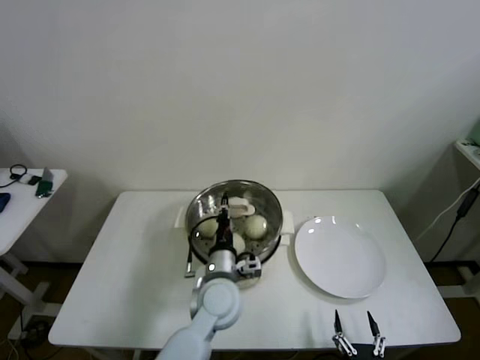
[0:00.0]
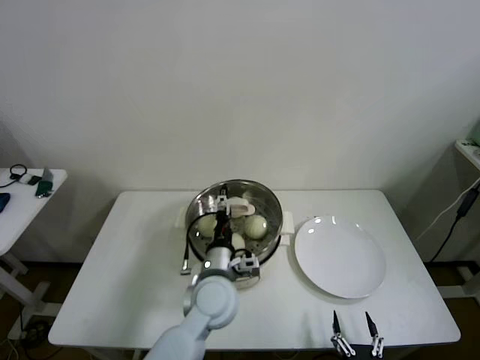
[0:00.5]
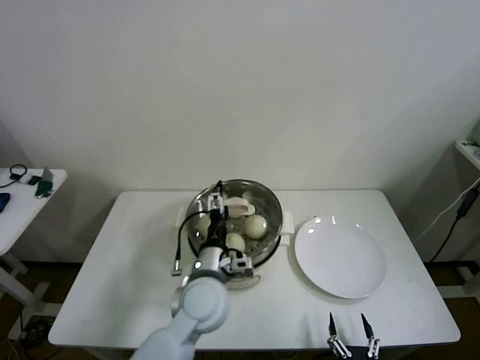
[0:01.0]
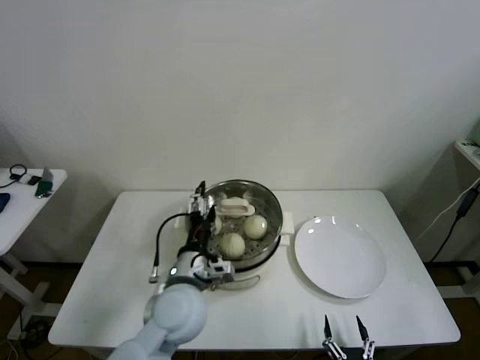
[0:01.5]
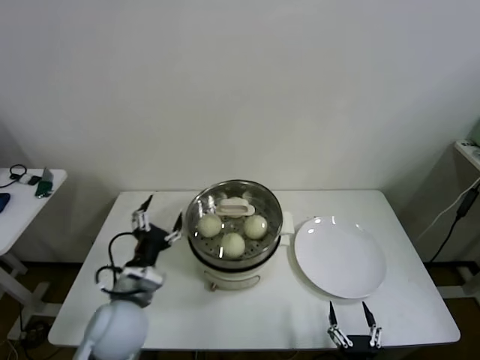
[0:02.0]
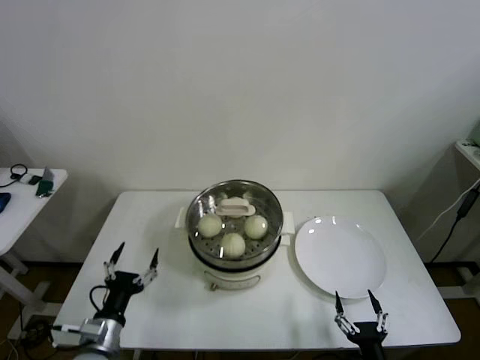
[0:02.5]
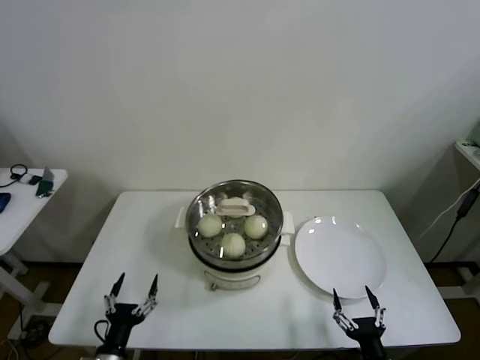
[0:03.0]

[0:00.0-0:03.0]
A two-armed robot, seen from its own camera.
0:00.0 to 0:01.5: The left gripper moves upward and to the left, about 10 cm, and opens its fingers.
0:01.5 to 0:03.0: The left gripper moves to the left, downward and backward, roughly 30 cm. The right gripper moves upward, some 5 cm.

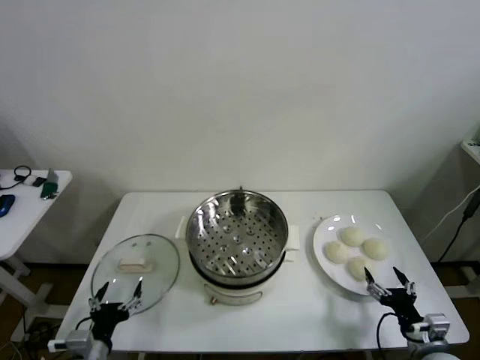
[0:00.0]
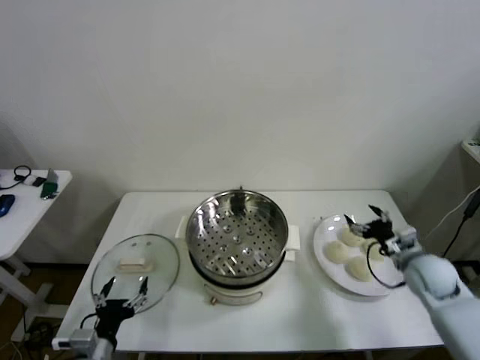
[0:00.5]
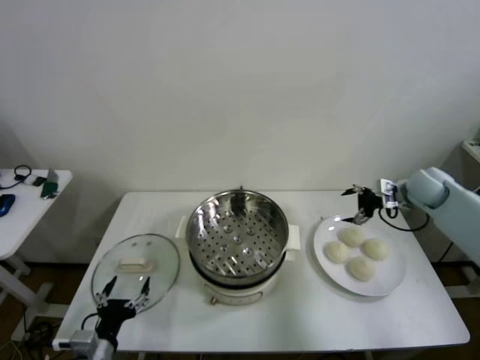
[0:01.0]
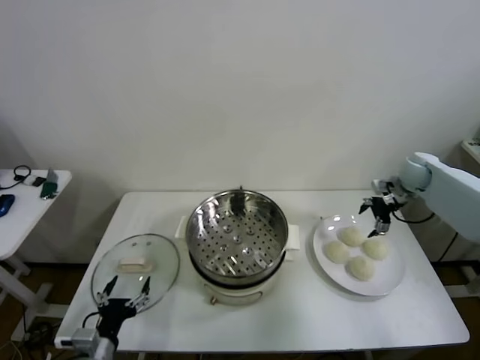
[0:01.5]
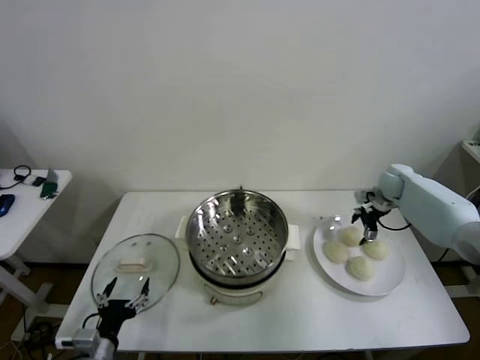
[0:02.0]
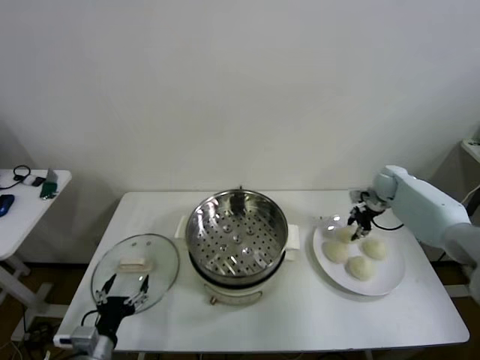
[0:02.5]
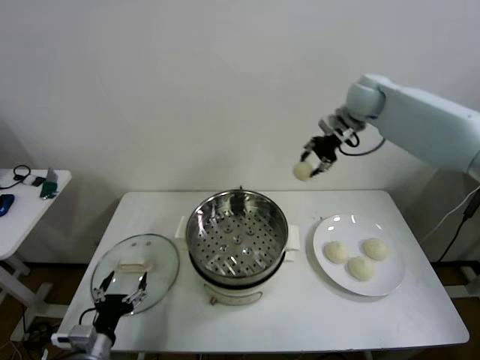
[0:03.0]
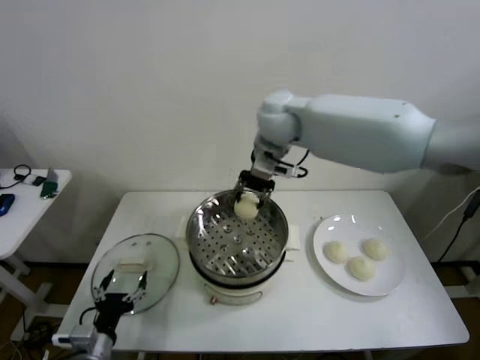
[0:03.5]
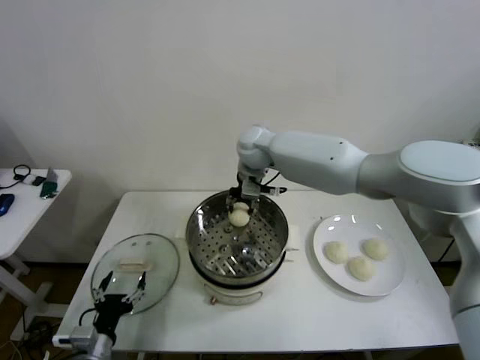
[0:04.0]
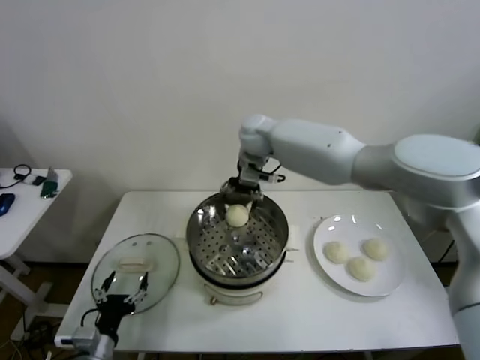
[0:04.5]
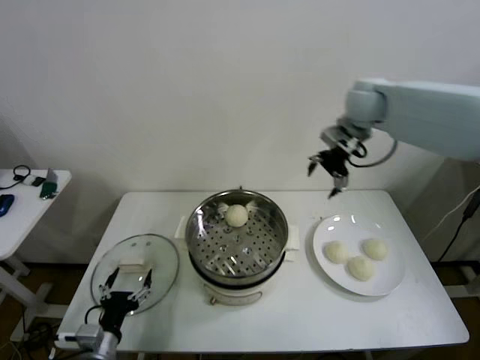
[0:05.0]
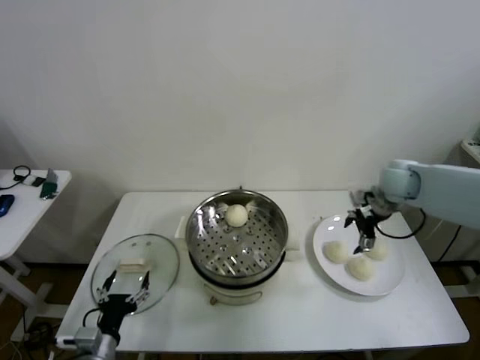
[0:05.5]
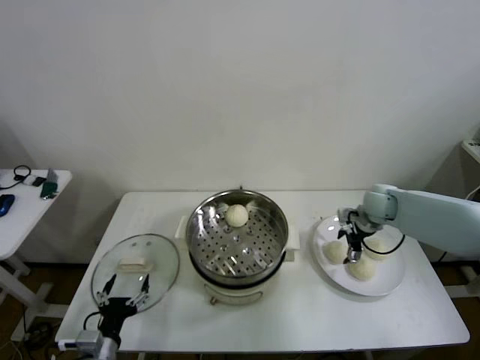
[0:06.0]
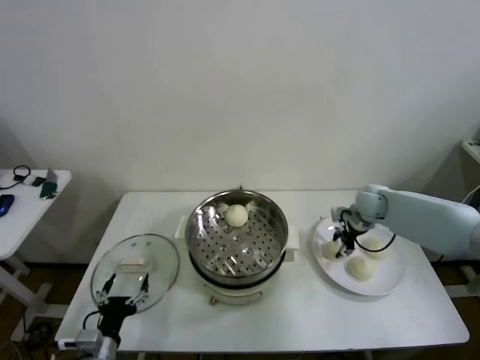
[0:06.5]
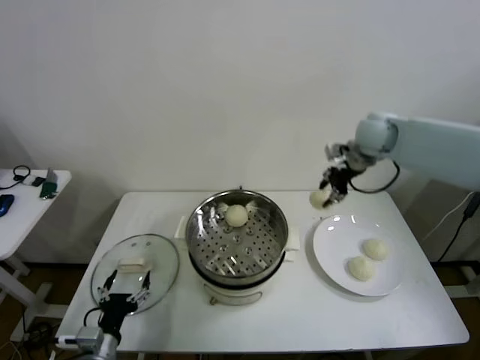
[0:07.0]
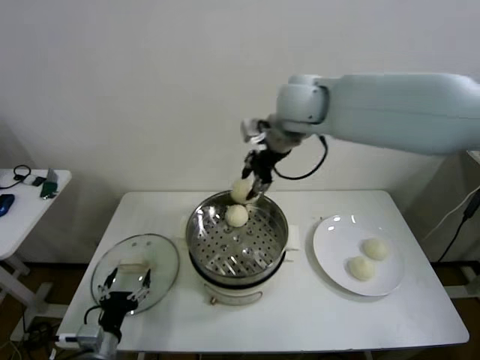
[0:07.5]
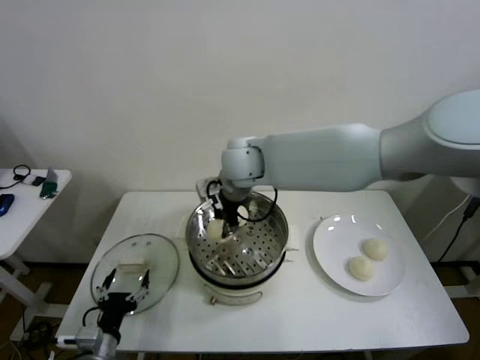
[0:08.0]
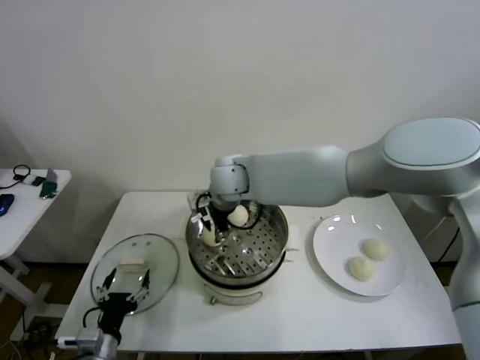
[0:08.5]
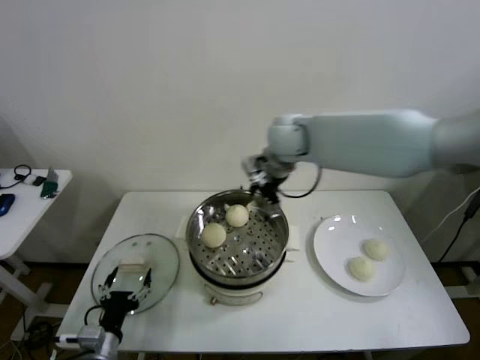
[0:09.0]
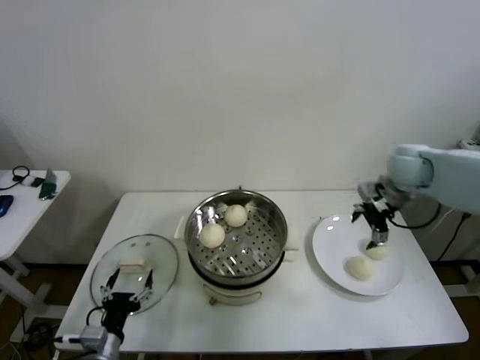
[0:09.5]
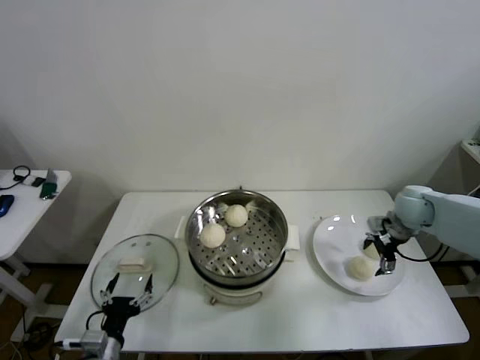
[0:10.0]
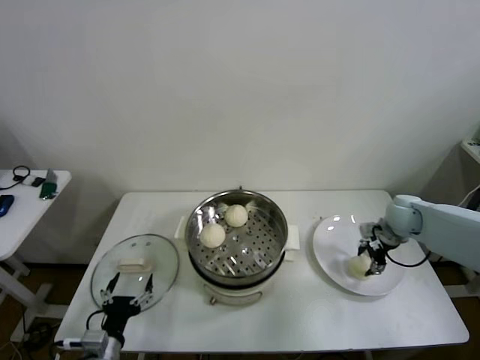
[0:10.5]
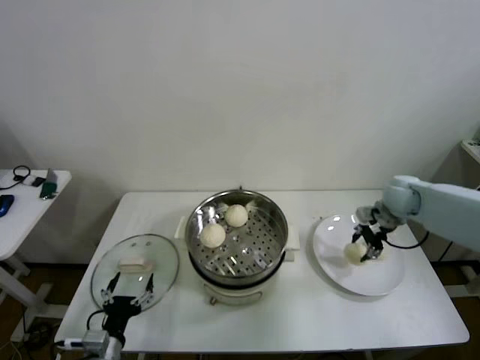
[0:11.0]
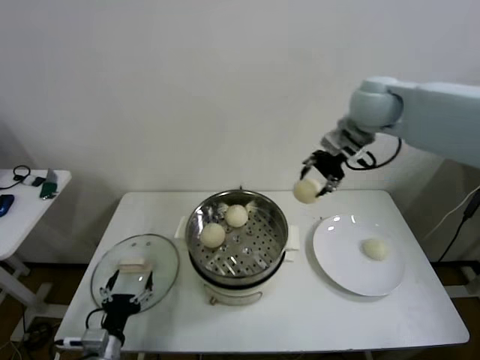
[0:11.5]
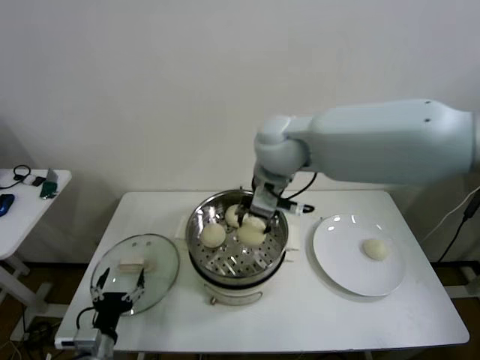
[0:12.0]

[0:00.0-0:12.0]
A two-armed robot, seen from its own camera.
Step, 0:00.0 to 0:02.0: Grasp the baozi in the plate with right gripper.
Step, 0:02.5 to 0:04.0: Place the baozi on the steamer with right gripper.
Step, 0:04.5 to 0:06.0: Grasp the baozi in the plate with right gripper.
Step, 0:07.0 to 0:08.5: Place the baozi on the steamer with right gripper.
Step, 0:09.0 to 0:10.5: Grasp the baozi in the plate with right gripper.
0:02.0 to 0:04.0: The right gripper shifts roughly 40 cm to the left, and closes.
0:04.0 to 0:06.0: The right gripper travels to the right and downward by some 35 cm, and opens its fingers.
0:06.0 to 0:08.0: The right gripper moves to the left and upward, some 40 cm, and closes up.
0:08.0 to 0:10.0: The right gripper shifts approximately 40 cm to the right, and opens up.
0:10.0 to 0:12.0: The right gripper moves to the left and upward, about 40 cm, and closes.

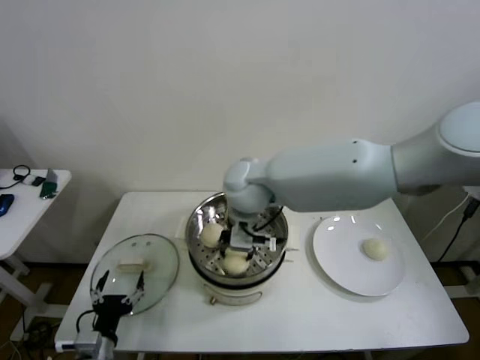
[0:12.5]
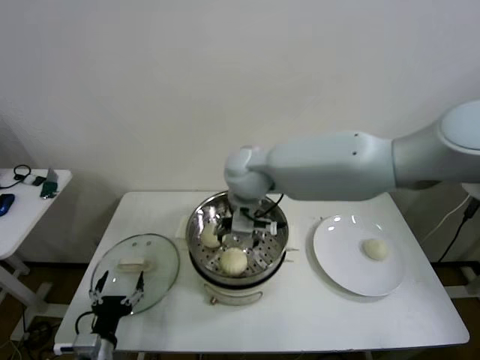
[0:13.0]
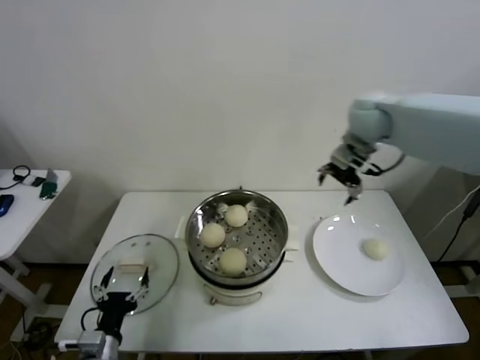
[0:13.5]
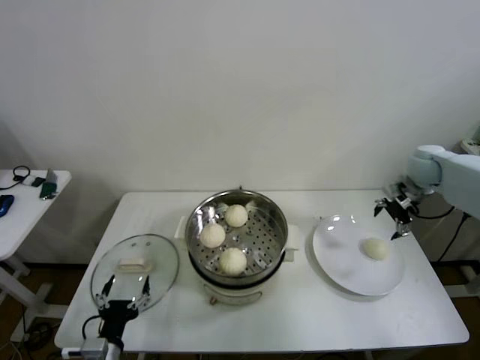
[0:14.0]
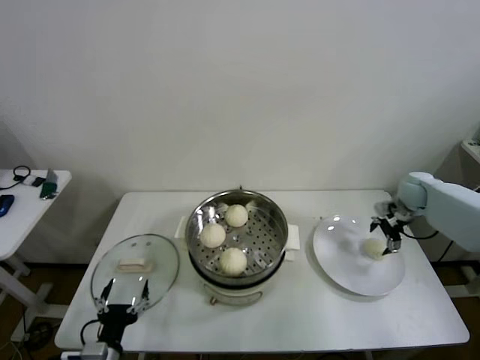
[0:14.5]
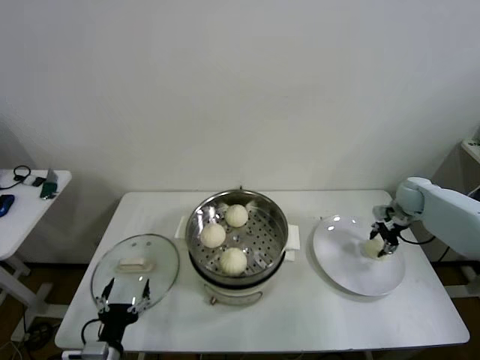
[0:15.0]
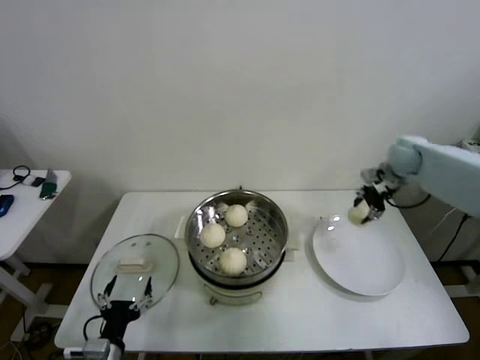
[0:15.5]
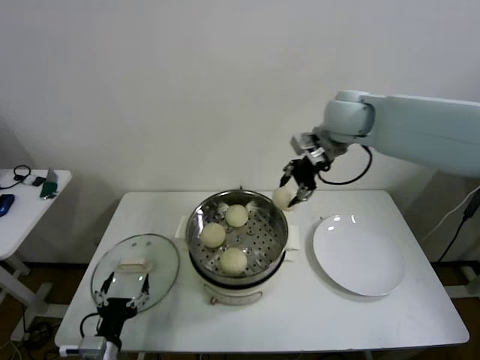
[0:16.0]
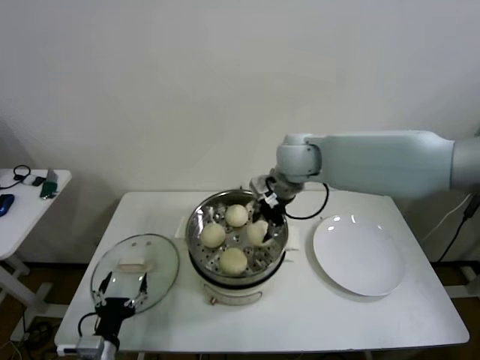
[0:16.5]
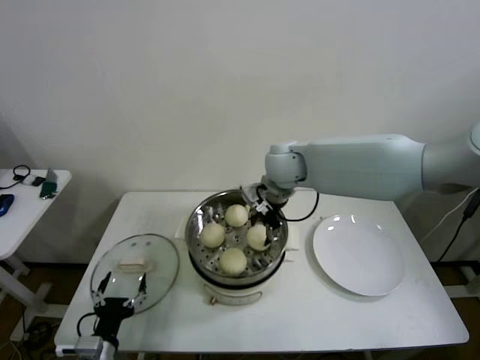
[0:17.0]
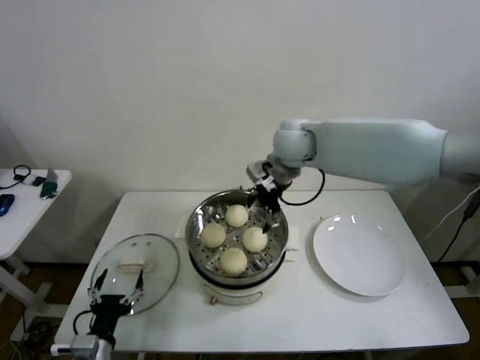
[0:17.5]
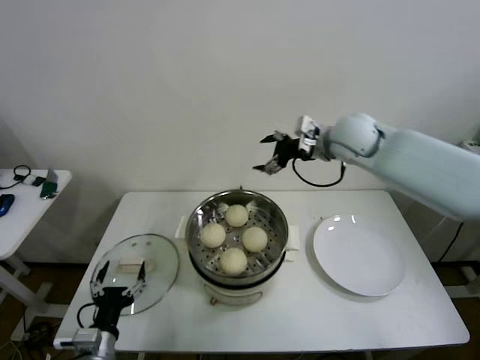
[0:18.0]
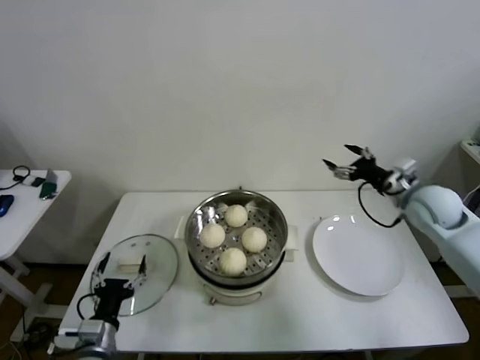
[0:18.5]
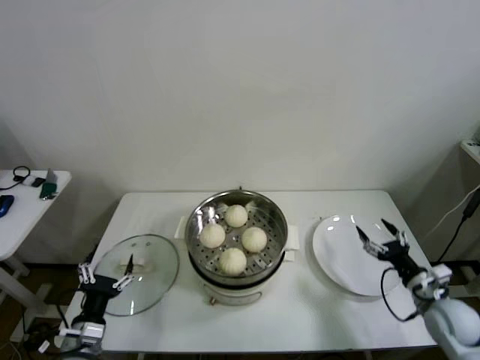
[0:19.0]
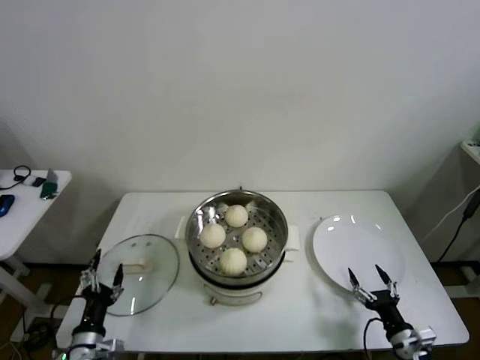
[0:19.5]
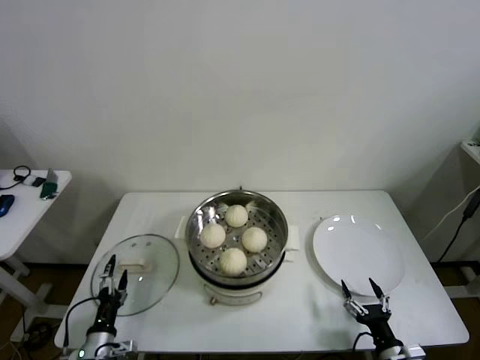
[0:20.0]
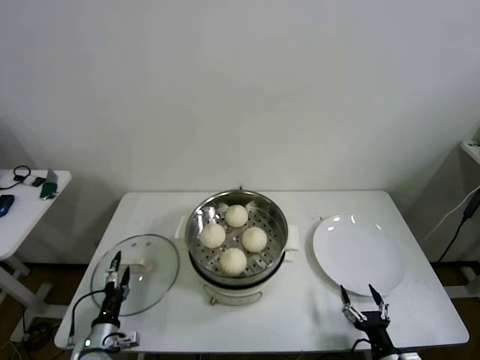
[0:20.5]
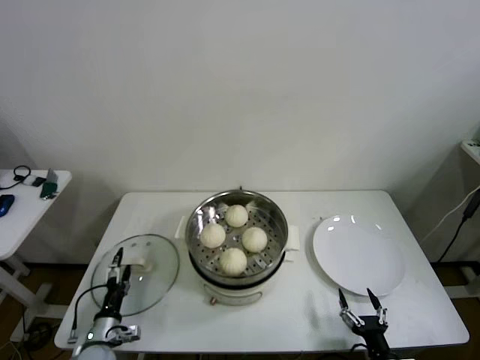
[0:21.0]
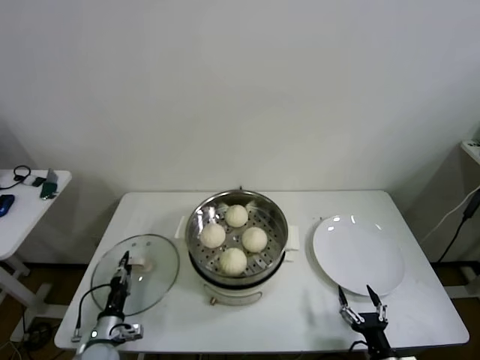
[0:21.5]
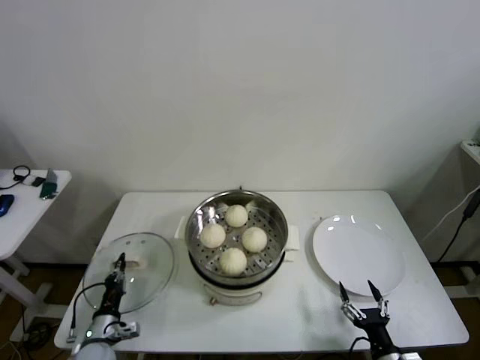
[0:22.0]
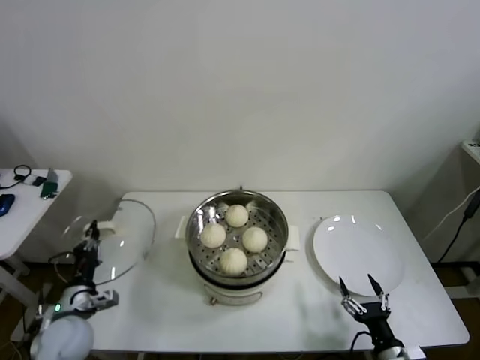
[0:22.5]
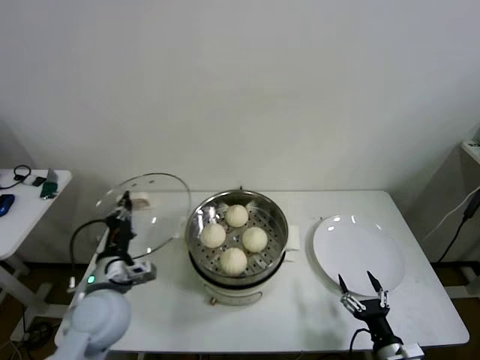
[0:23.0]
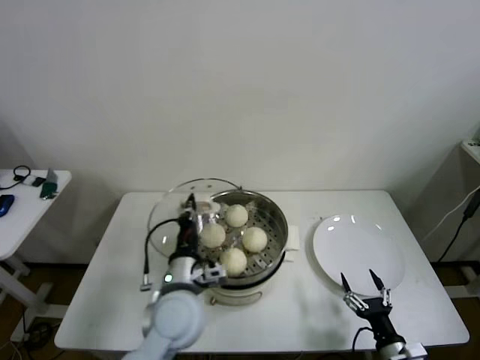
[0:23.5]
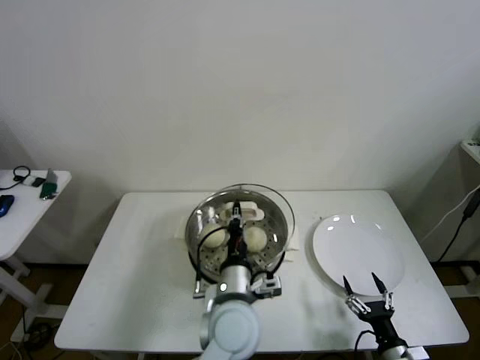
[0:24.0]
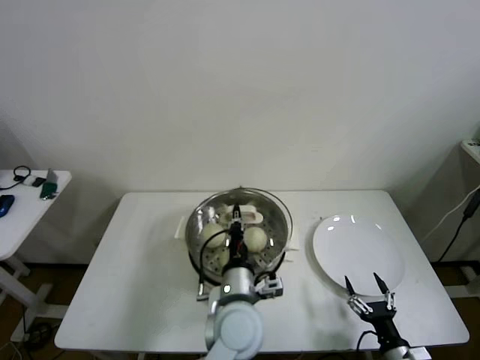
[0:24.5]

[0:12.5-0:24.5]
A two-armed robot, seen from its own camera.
Step, 0:13.0 to 0:15.0: Grasp the baozi in the plate with right gripper.
Step, 0:15.5 to 0:17.0: Place the baozi on the steamer with right gripper.
Step, 0:17.5 to 0:21.5: Grasp the pot lid with left gripper.
0:12.5 to 0:14.5: The right gripper moves to the right, approximately 50 cm, and opens up.
0:14.5 to 0:16.5: The right gripper shifts roughly 40 cm to the left and upward, and closes its fingers.
0:16.5 to 0:18.5: The right gripper shifts about 30 cm to the right, and opens up.
0:18.5 to 0:20.5: The right gripper goes some 40 cm backward and downward; the left gripper moves downward, roughly 10 cm.
0:20.5 to 0:22.5: The left gripper is displaced upward by some 10 cm, and closes up.
0:22.5 to 0:24.5: The left gripper is displaced to the right by roughly 35 cm.
